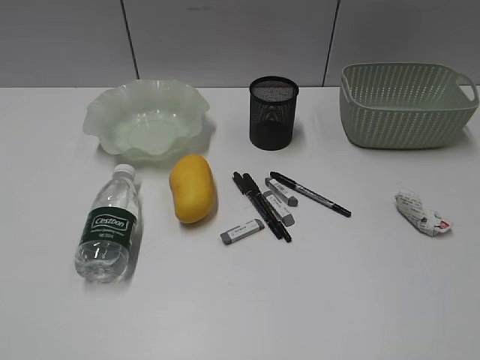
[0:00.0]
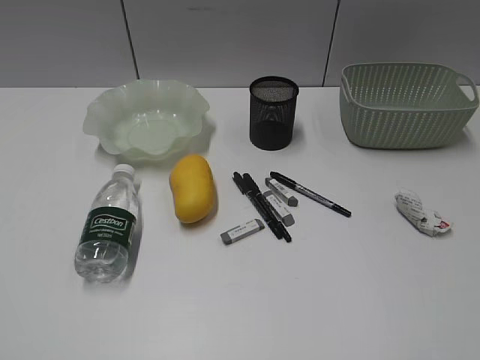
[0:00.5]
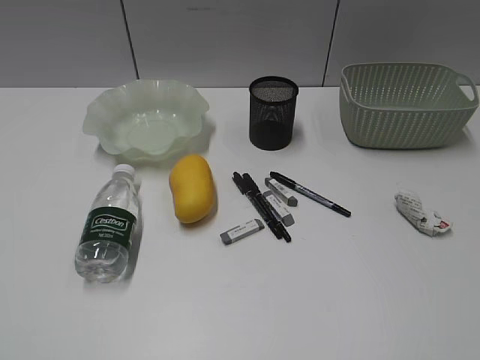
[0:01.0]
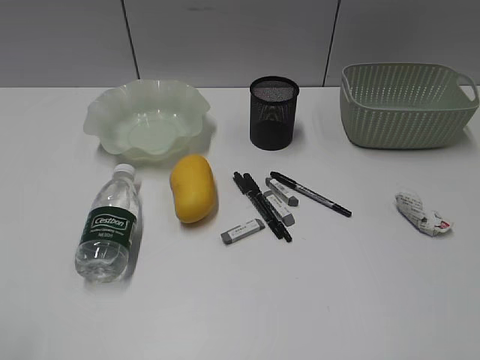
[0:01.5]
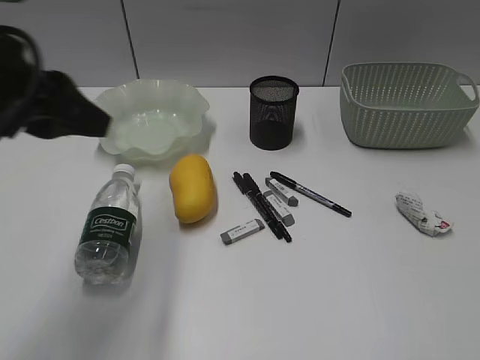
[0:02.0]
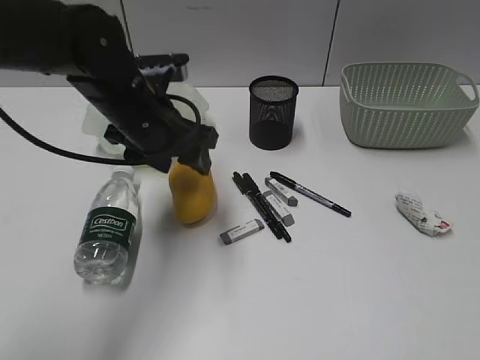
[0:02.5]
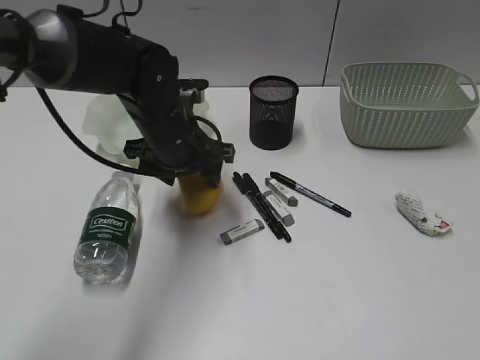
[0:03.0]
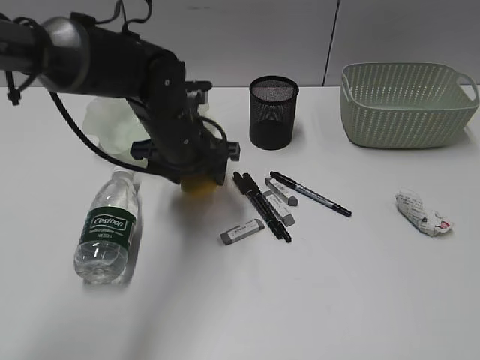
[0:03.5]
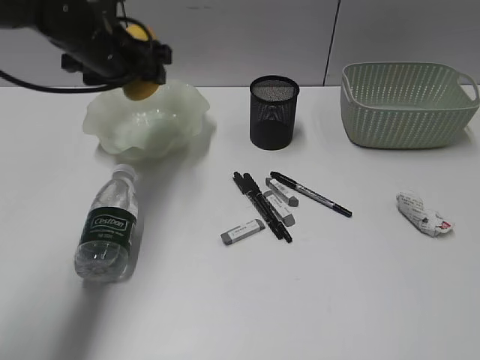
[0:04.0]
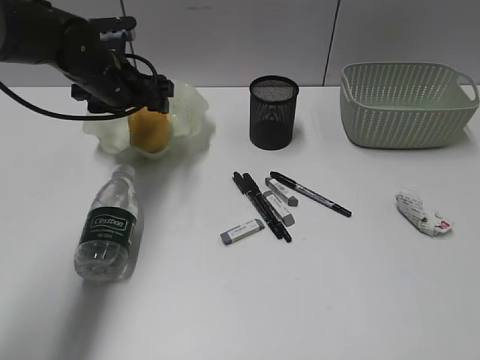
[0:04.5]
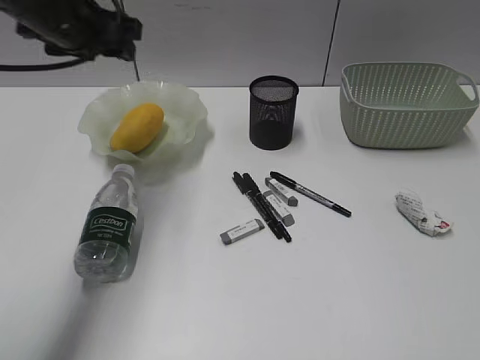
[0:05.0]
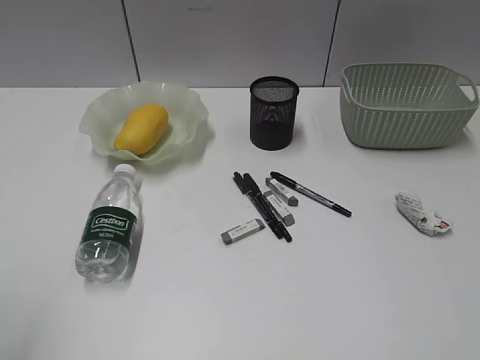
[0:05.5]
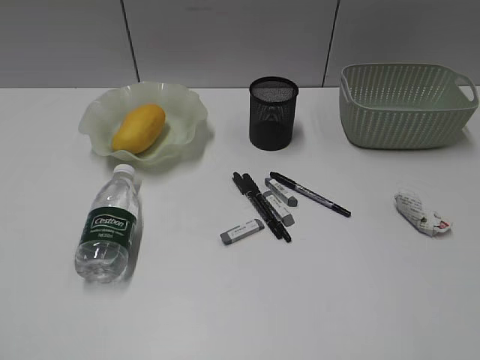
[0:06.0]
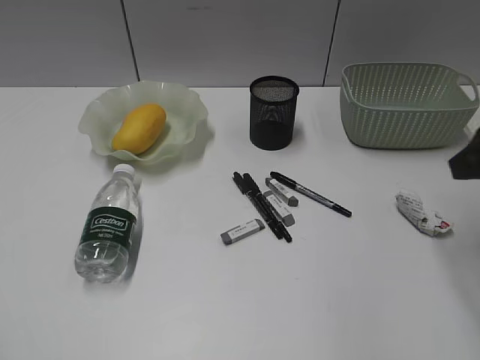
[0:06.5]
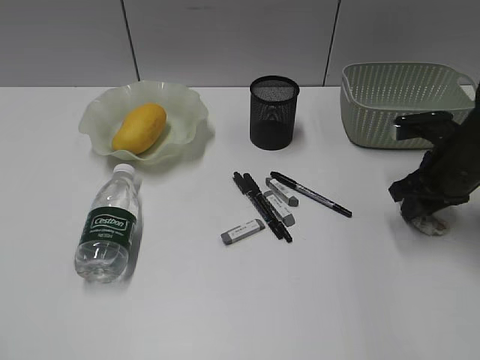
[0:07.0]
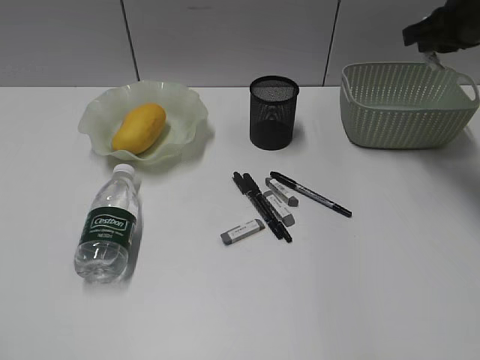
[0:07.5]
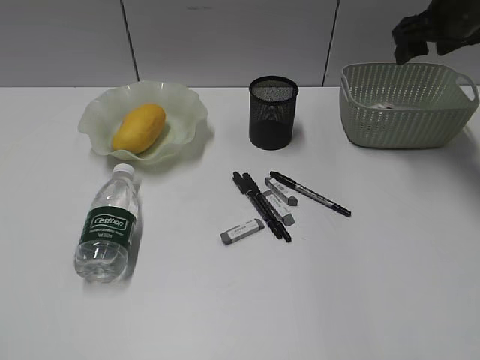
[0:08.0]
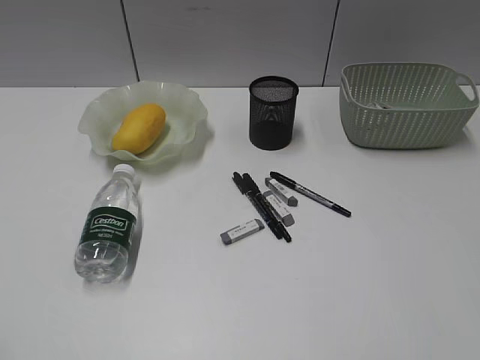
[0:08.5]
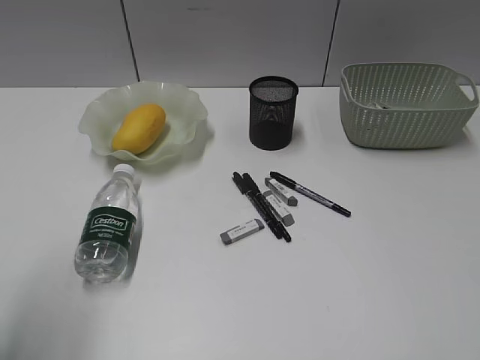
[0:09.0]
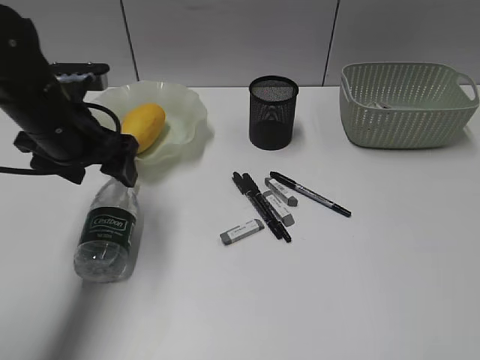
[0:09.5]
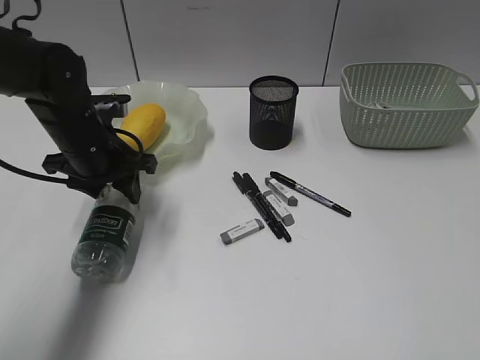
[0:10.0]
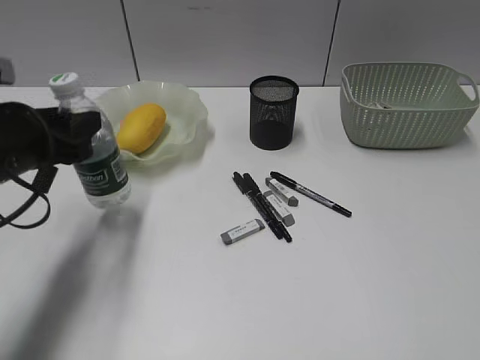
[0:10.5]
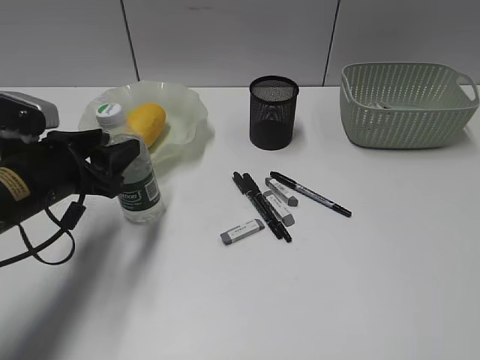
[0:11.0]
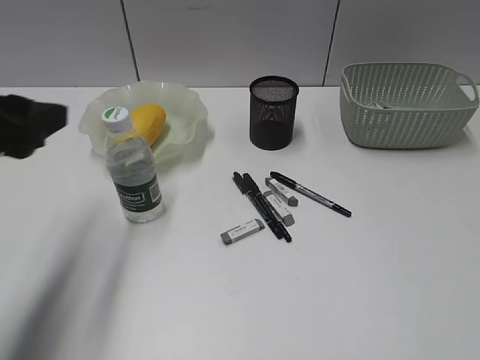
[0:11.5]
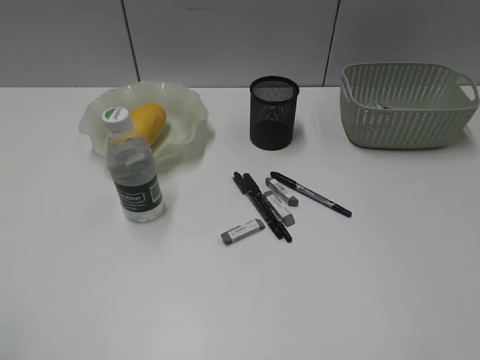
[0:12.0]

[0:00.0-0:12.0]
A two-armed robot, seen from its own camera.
Step, 0:01.5 to 0:03.0: Grasp the mango with left gripper.
Step, 0:03.5 to 0:04.5: Place the mango in the plate with left gripper.
Step, 0:05.0 to 0:07.0: Grasp the waste paper with right gripper.
Step, 0:08.5 to 0:09.5: Grasp the bottle with left gripper.
Step, 0:10.0 to 0:11.0: Stand the bottle with left gripper.
0:02.0 to 0:04.0: The left gripper goes roughly 20 cm forward, and opens its fingers.
0:04.0 to 0:06.0: The left gripper is displaced backward and to the left by roughly 50 cm.
0:06.0 to 0:08.0: The right gripper heads forward, covering approximately 40 cm, and closes, then reopens.
0:08.0 to 0:10.0: The right gripper heads backward, covering approximately 50 cm. The left gripper goes some 40 cm forward, to the right and downward, and opens, then closes once more.
0:10.0 to 0:12.0: The left gripper travels backward, upward and to the left by approximately 40 cm.

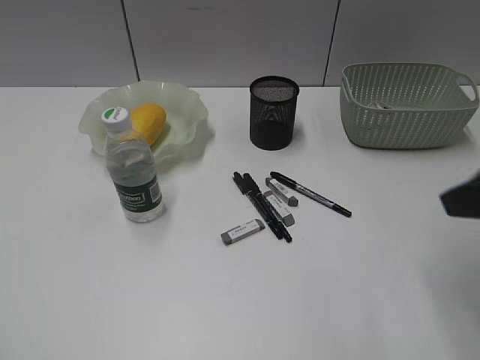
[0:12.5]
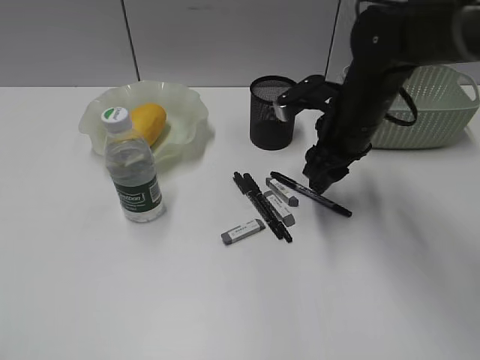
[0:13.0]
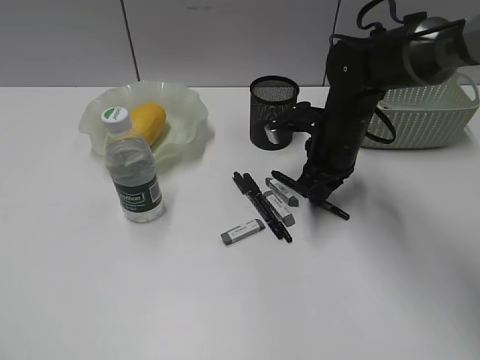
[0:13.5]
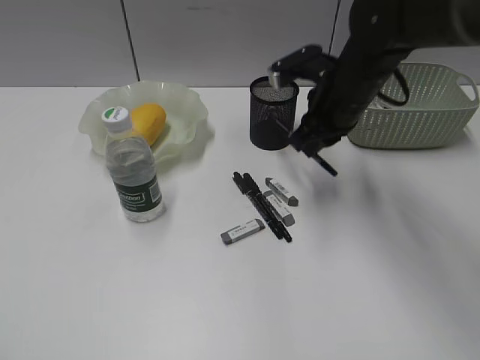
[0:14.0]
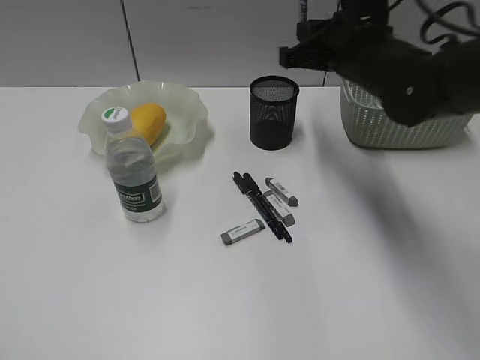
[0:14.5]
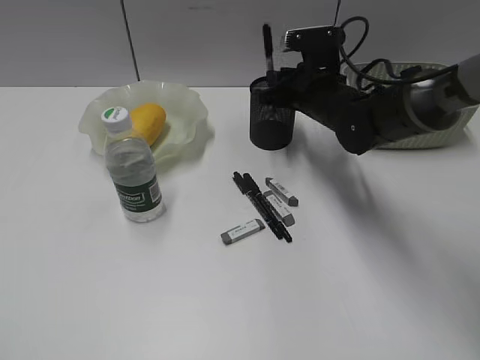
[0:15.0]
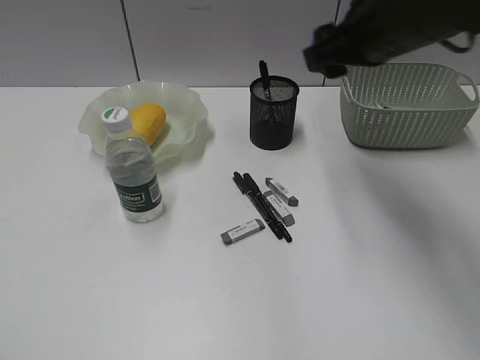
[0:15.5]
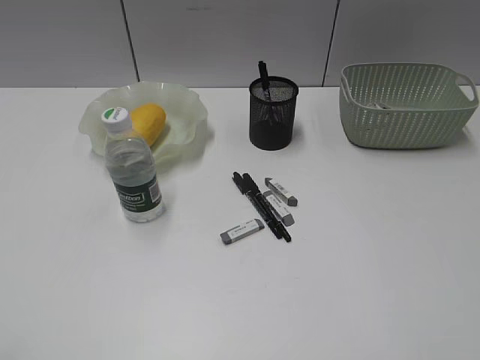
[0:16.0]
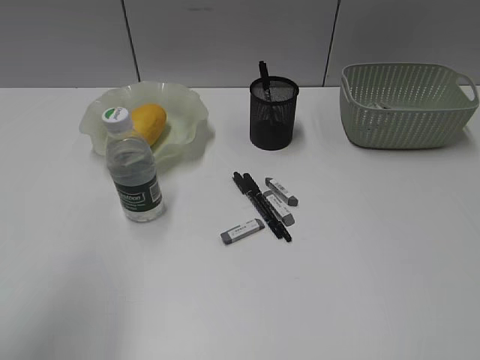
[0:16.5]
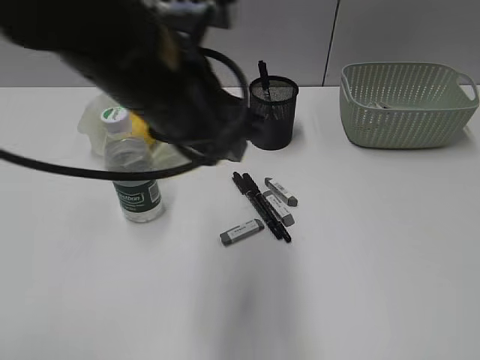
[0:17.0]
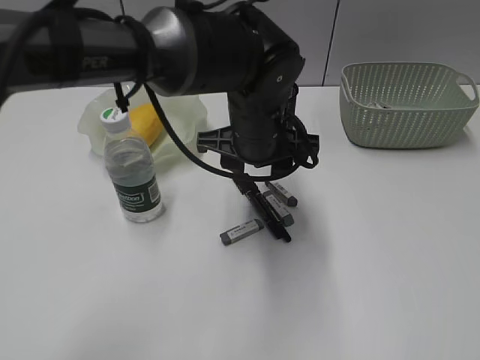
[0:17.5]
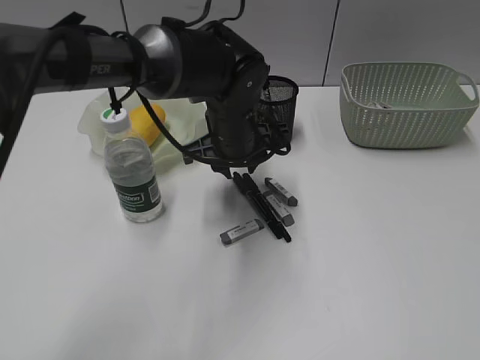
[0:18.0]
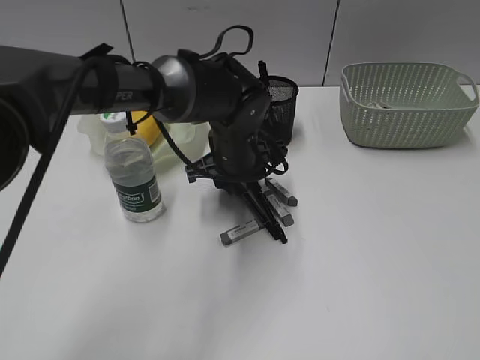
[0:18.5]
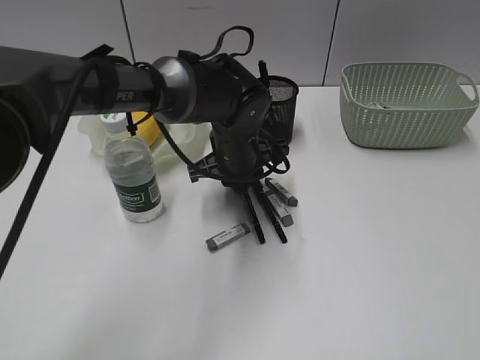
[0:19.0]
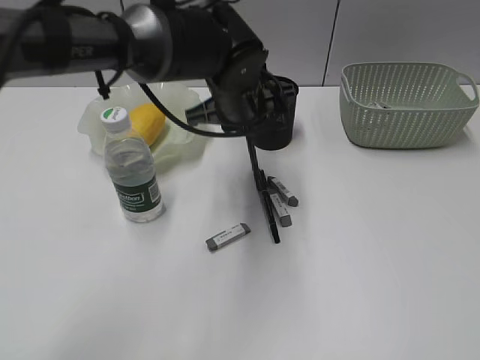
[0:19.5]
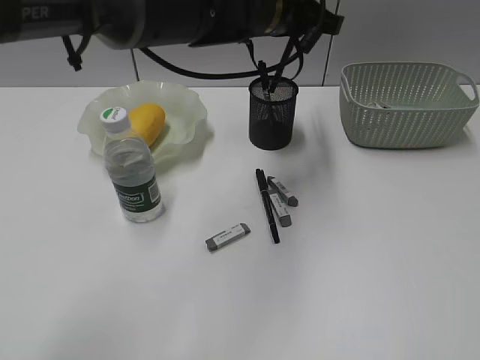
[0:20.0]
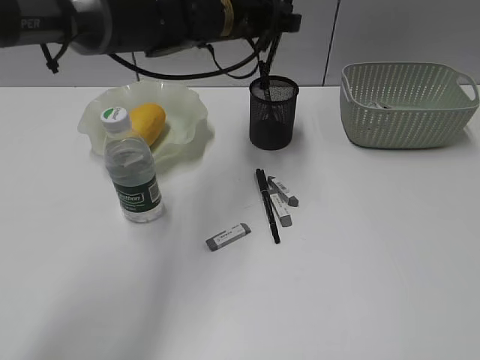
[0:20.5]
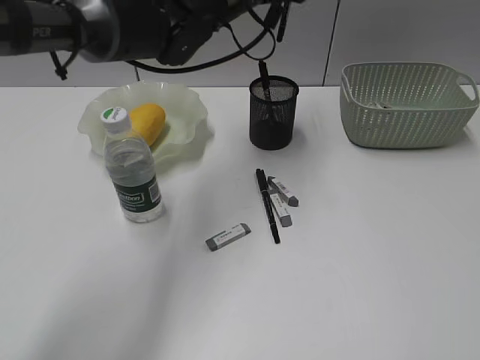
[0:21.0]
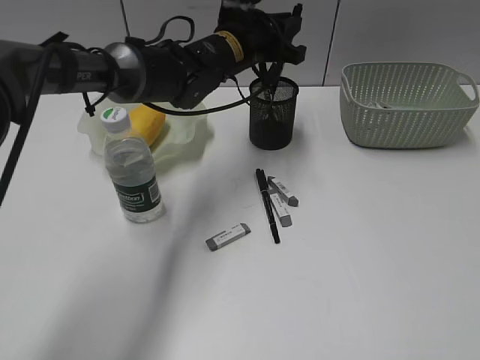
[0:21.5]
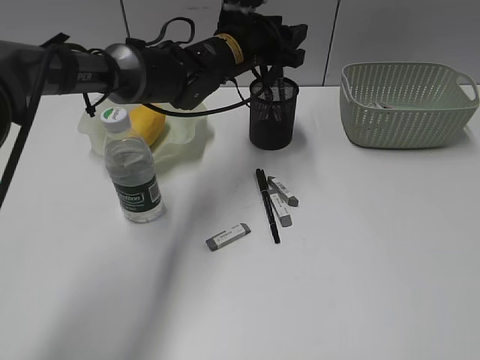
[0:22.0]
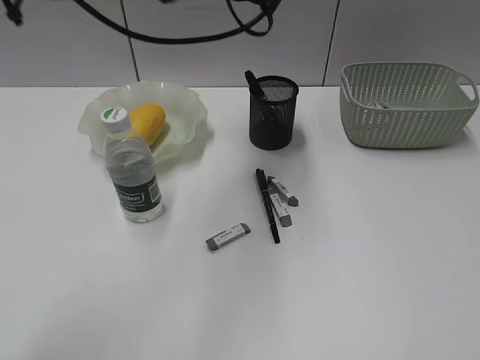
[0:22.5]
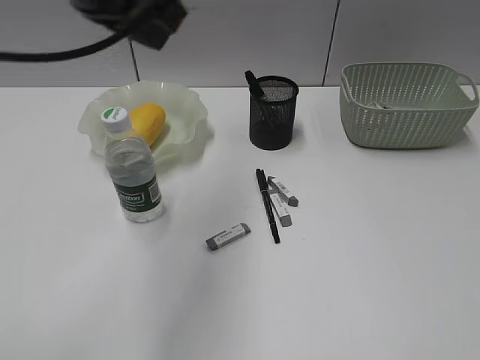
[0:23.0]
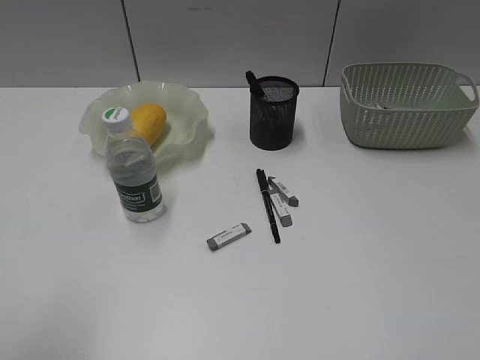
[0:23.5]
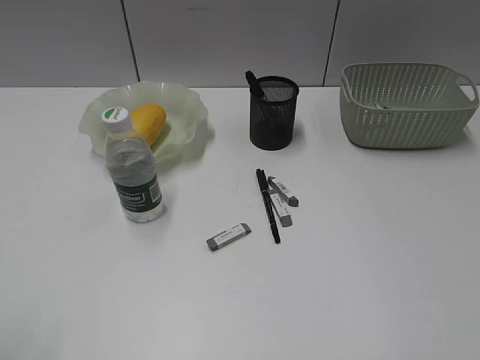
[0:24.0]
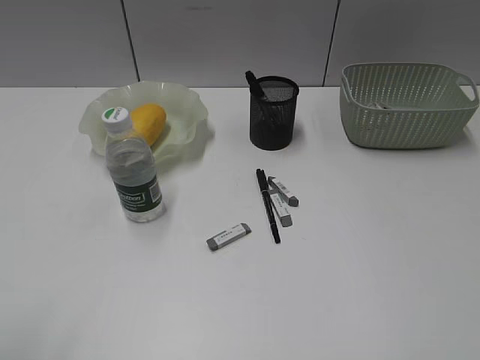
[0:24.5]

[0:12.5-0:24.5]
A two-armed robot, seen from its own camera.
Step, 0:14.0 to 0:15.0: Place the black pen in pen holder with right gripper.
Step, 0:15.5 to 0:19.0: Grasp the black pen with left gripper.
Step, 0:19.5 to 0:22.0: Place the black pen in pen holder with left gripper.
0:12.5 to 0:14.5: The right gripper goes about 20 cm forward and to the left, and closes its fingers.
0:14.5 to 0:16.5: The left gripper travels forward and to the right by roughly 15 cm, while the right gripper shifts approximately 40 cm backward and to the right, and opens up.
0:16.5 to 0:18.5: The left gripper is displaced to the right, forward and downward by some 40 cm.
0:18.5 to 0:20.5: The left gripper heads upward and forward, covering some 15 cm.
0:20.5 to 0:22.5: The left gripper is displaced upward by roughly 5 cm, and opens and closes again.
0:22.5 to 0:24.5: The left gripper shifts approximately 50 cm backward and to the left.

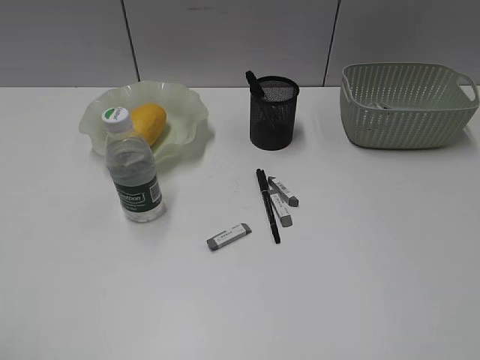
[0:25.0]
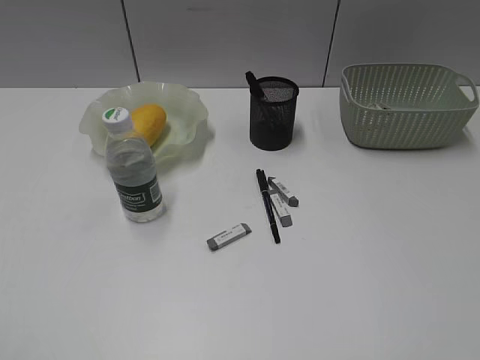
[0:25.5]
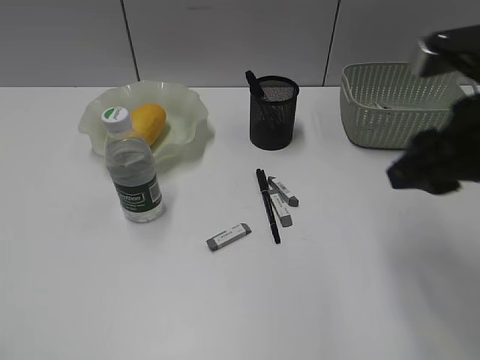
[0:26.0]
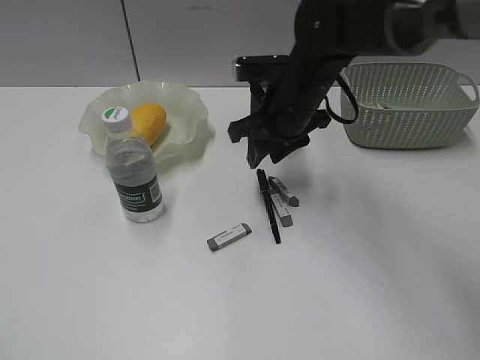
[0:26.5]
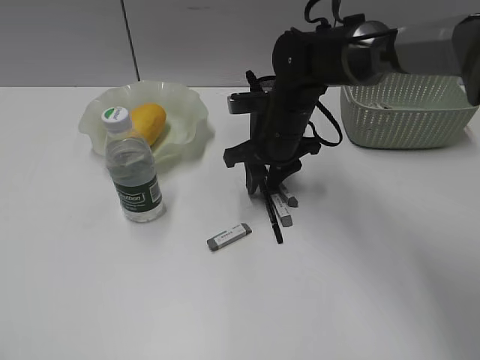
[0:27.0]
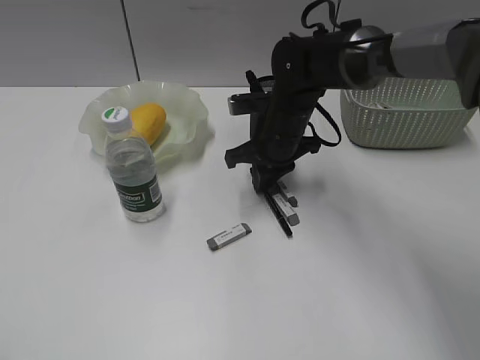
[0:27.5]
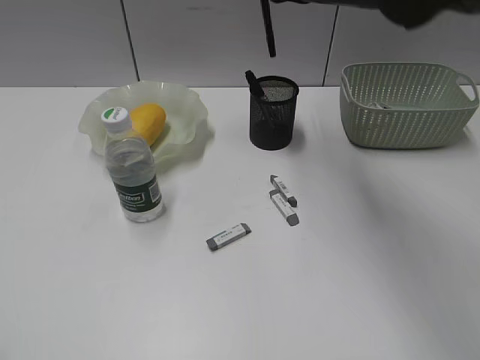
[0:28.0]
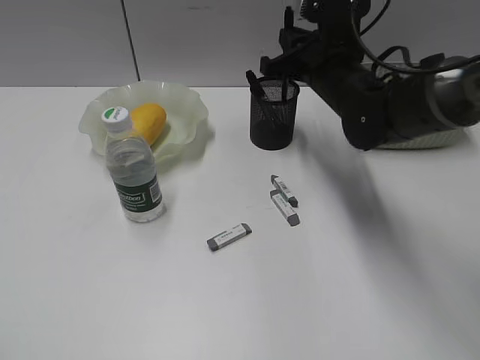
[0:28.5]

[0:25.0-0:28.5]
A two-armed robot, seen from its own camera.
Step, 0:25.0 to 0:27.0: Grasp the black pen with right gripper.
0:25.0 to 0:27.0: The right gripper goes about 50 cm forward, to the left and downward.
0:27.0 to 0:28.5: The right gripper is displaced to the right by approximately 5 cm, travels upward and back again, some 20 cm each way, and closes.
